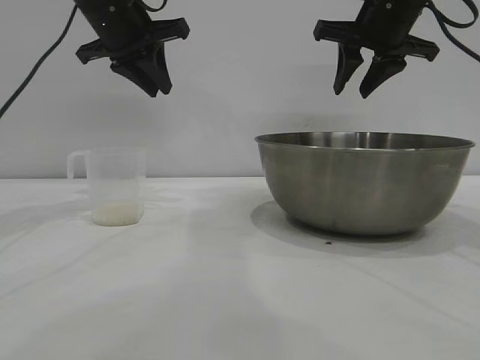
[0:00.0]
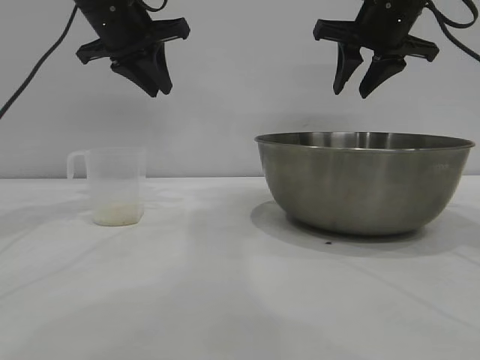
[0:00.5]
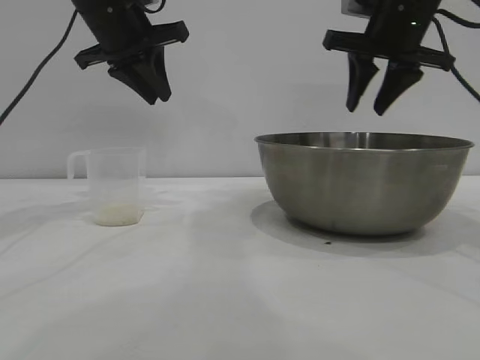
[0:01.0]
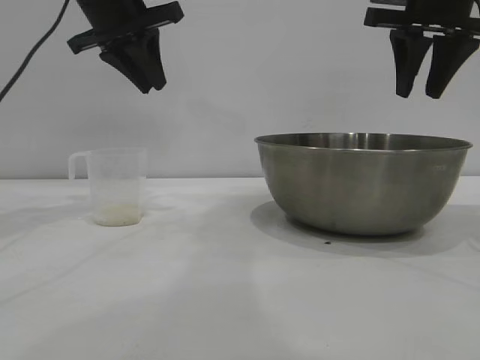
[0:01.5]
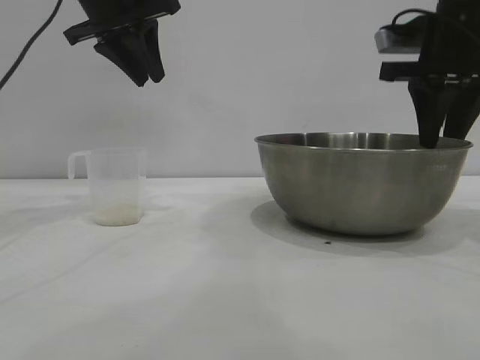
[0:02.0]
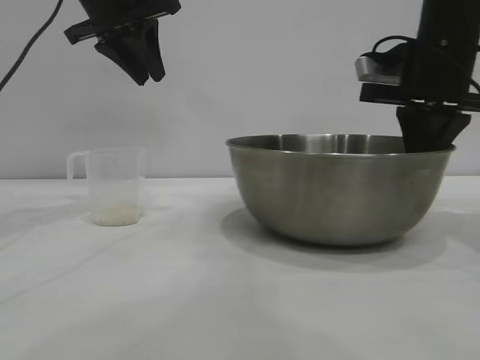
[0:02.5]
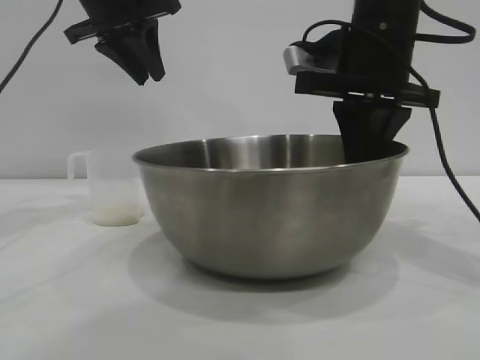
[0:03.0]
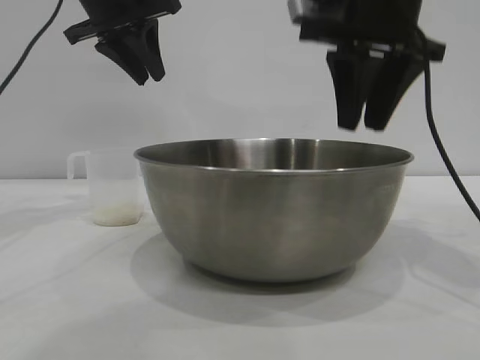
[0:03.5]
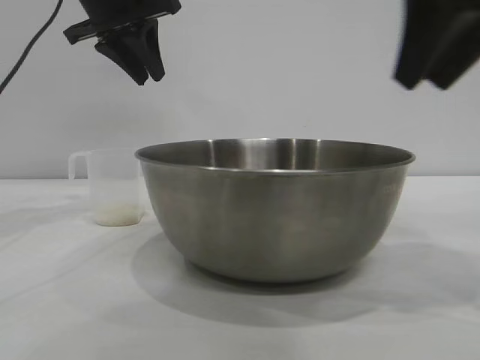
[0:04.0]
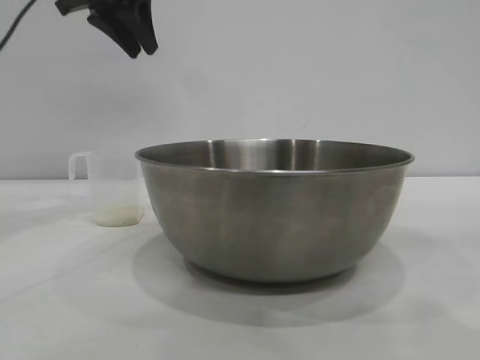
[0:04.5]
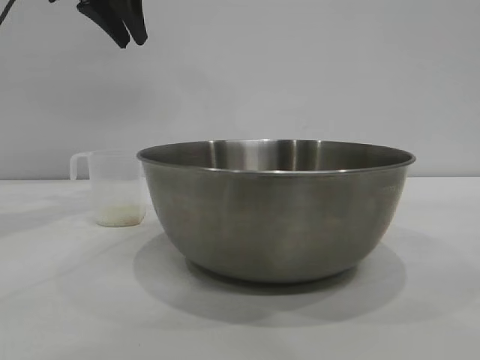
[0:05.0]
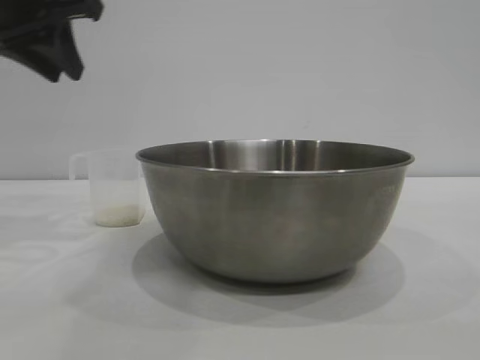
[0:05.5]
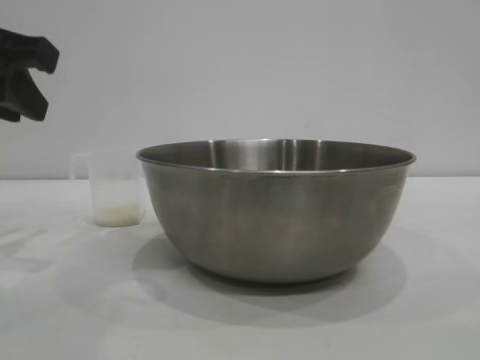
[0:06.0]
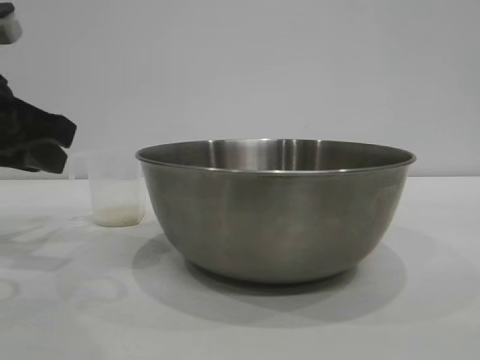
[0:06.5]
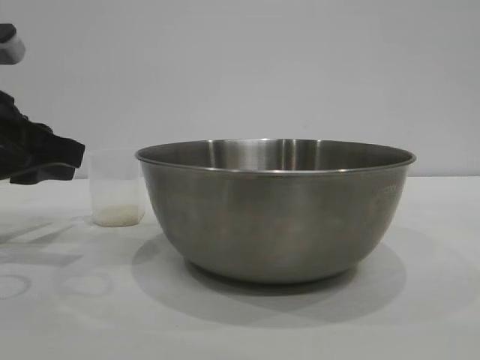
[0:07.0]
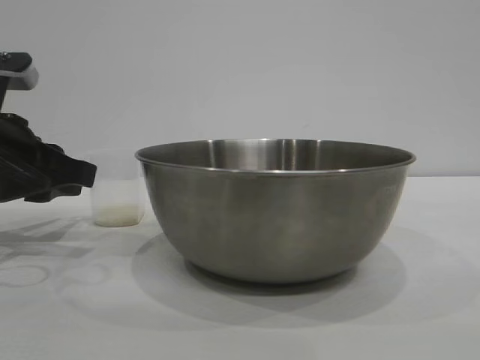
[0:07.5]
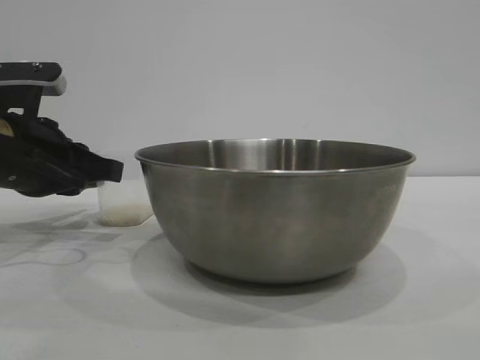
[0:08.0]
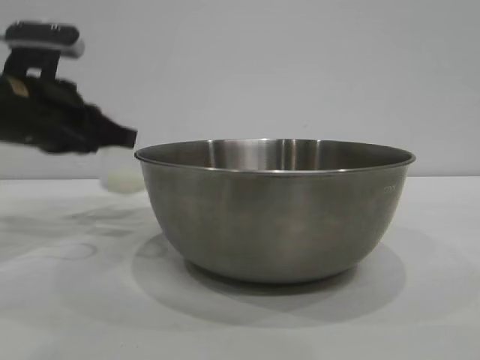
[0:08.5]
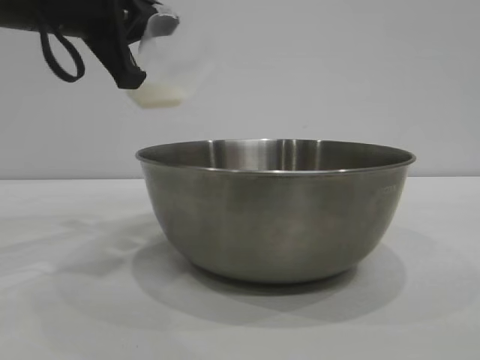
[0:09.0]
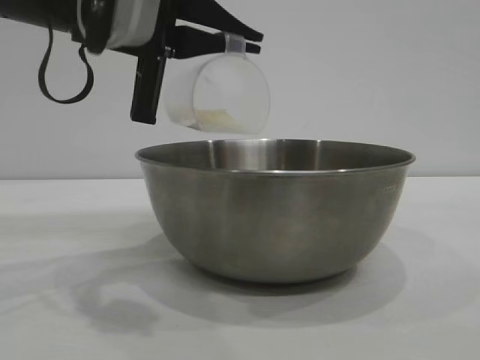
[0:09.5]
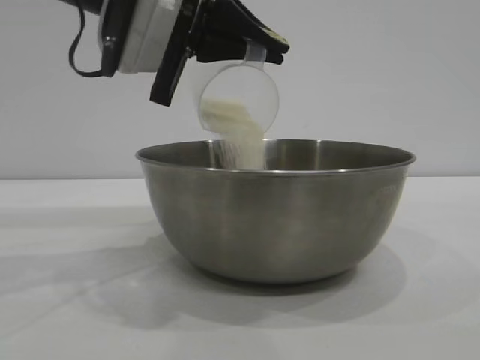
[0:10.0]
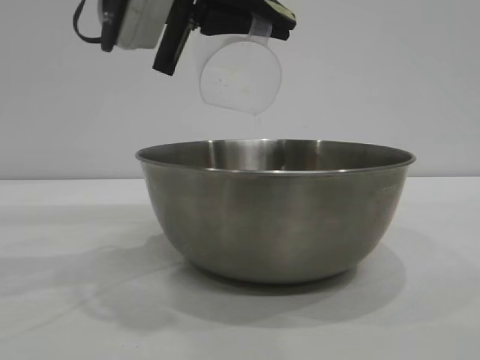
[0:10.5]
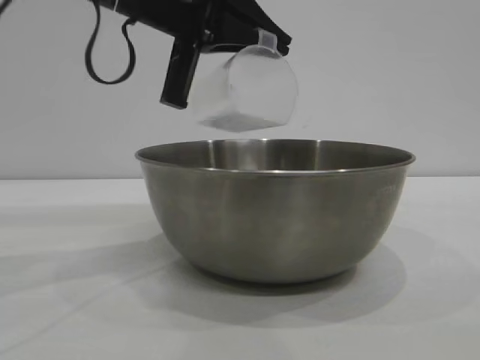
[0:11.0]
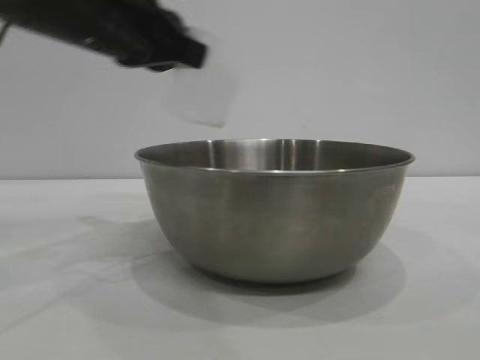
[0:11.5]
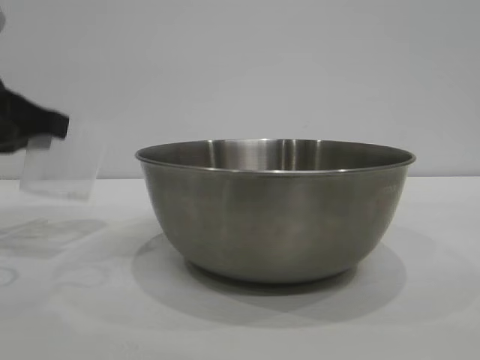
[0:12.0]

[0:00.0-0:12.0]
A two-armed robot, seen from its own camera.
Task of the whole recording: the right gripper grasp the rice container and place it in the center of the table, the left gripper grasp the rice scoop and pour the rice into the rice container.
Step, 0:00.0 to 0:03.5: Move the bowl to the center of view with the right gripper.
Step, 0:04.0 to 0:08.5: Pick up the cup with rice in it with the left gripper.
Step, 0:09.0 to 0:11.0: Pour the rice from the cup into the bowl with the left gripper.
